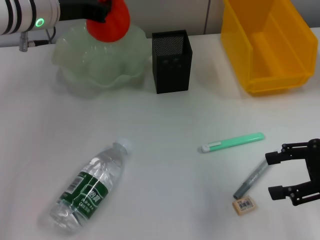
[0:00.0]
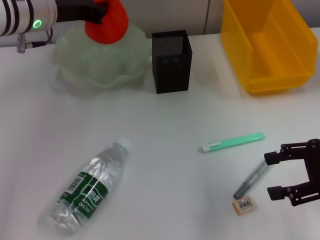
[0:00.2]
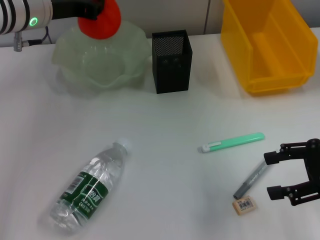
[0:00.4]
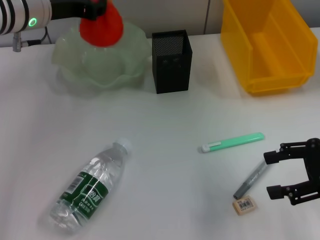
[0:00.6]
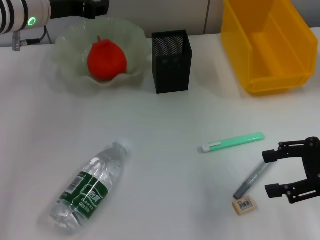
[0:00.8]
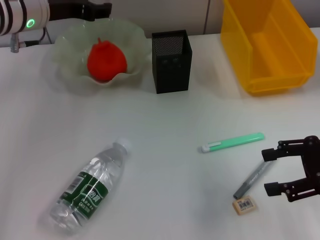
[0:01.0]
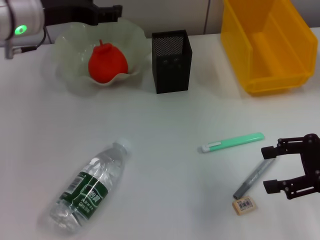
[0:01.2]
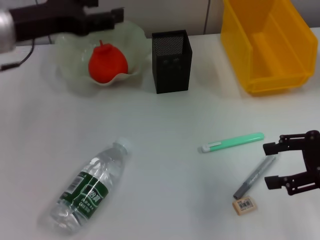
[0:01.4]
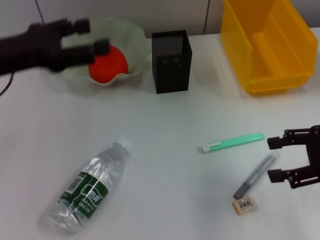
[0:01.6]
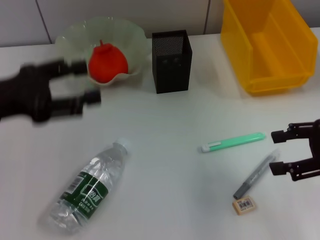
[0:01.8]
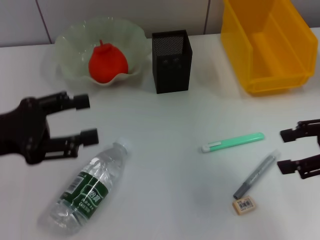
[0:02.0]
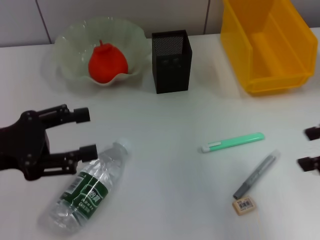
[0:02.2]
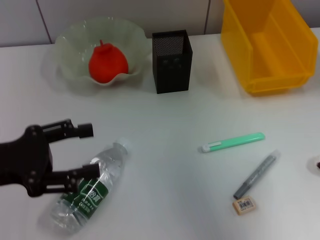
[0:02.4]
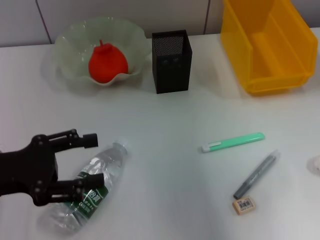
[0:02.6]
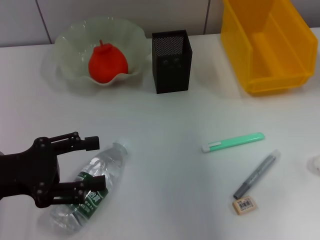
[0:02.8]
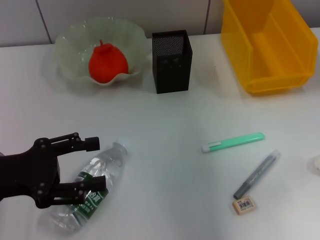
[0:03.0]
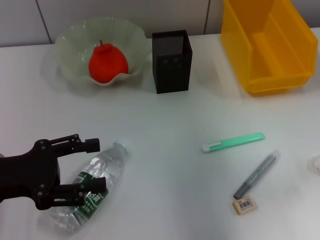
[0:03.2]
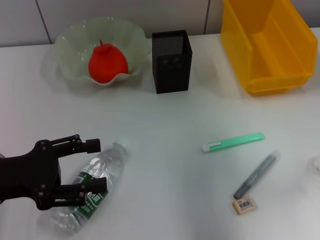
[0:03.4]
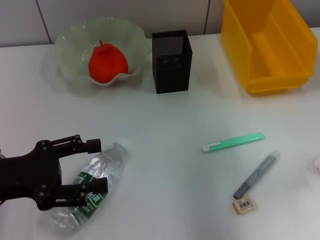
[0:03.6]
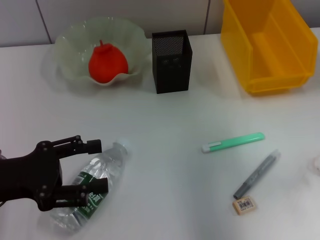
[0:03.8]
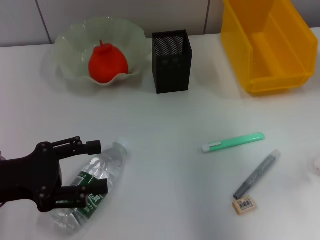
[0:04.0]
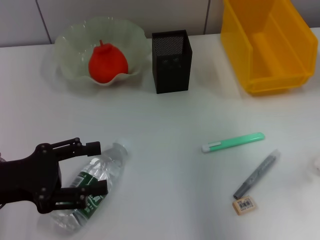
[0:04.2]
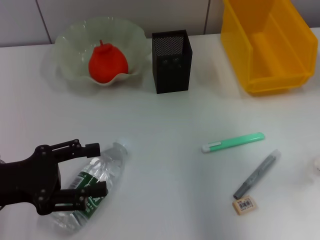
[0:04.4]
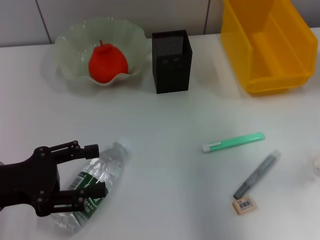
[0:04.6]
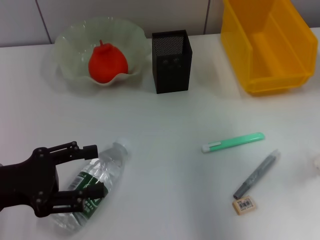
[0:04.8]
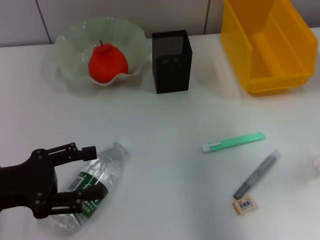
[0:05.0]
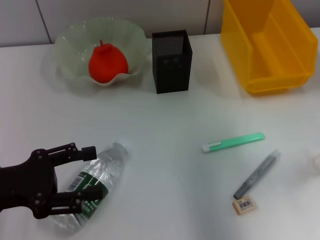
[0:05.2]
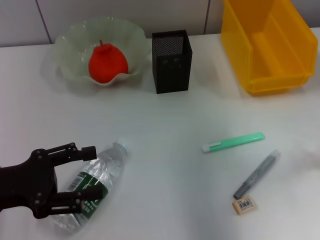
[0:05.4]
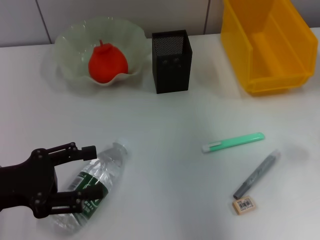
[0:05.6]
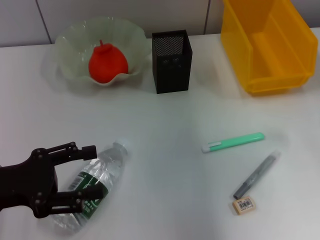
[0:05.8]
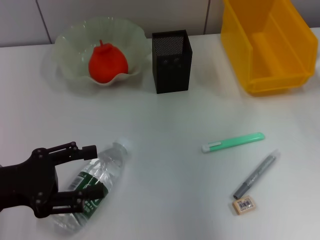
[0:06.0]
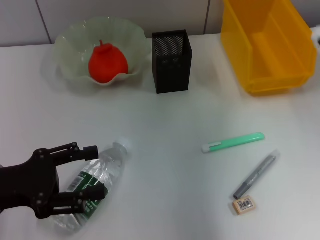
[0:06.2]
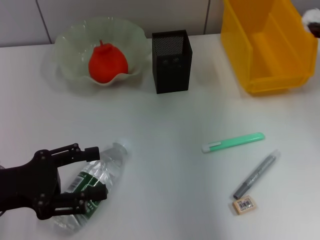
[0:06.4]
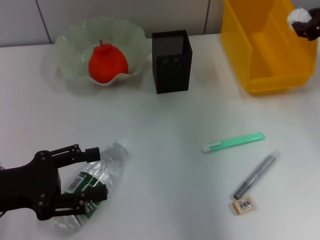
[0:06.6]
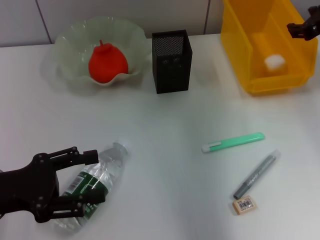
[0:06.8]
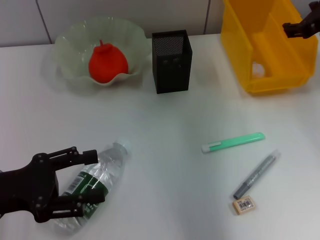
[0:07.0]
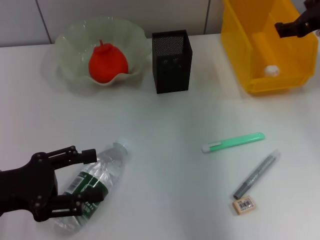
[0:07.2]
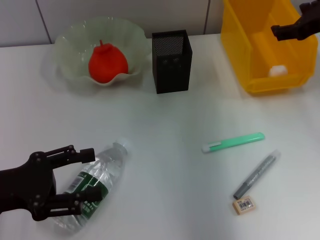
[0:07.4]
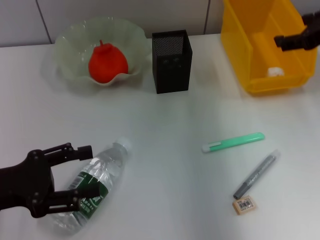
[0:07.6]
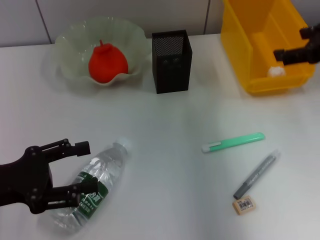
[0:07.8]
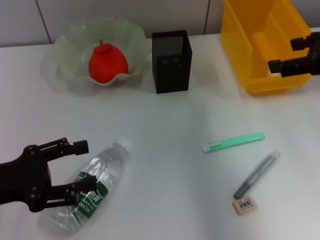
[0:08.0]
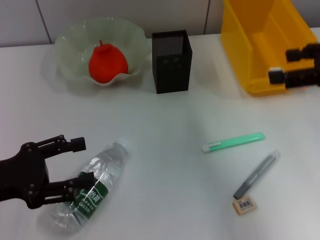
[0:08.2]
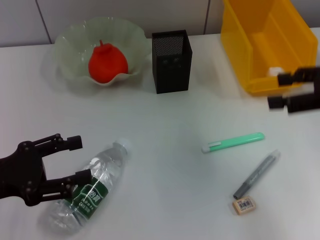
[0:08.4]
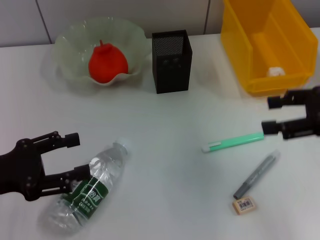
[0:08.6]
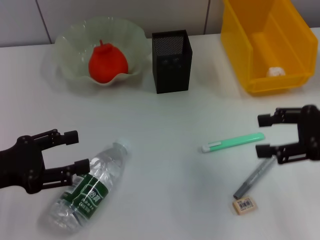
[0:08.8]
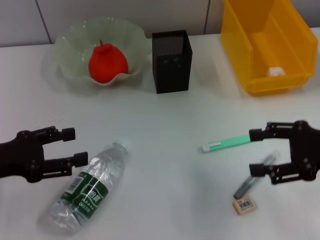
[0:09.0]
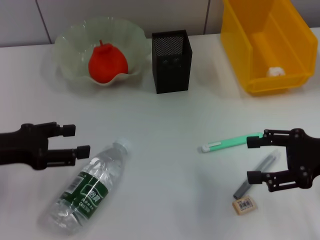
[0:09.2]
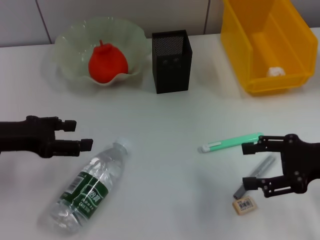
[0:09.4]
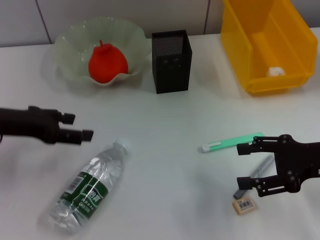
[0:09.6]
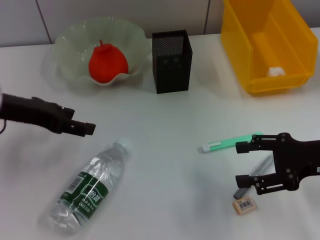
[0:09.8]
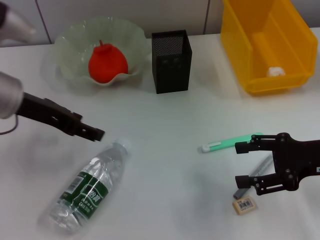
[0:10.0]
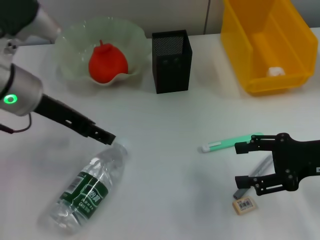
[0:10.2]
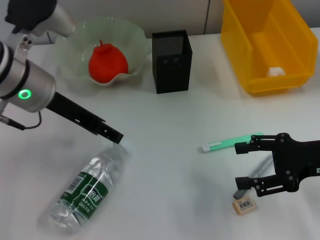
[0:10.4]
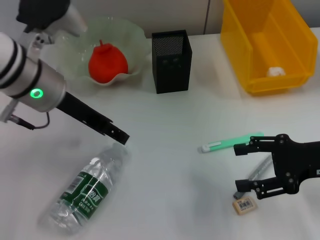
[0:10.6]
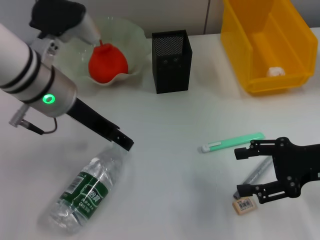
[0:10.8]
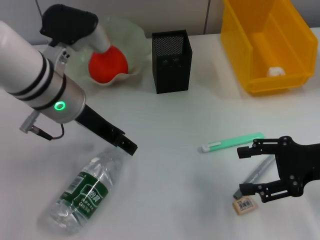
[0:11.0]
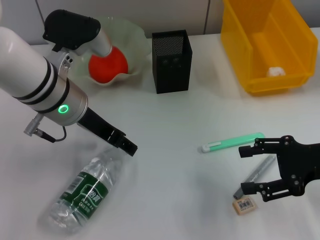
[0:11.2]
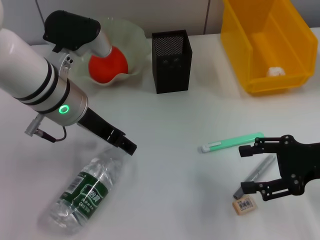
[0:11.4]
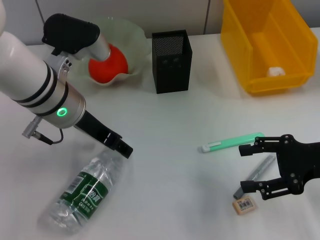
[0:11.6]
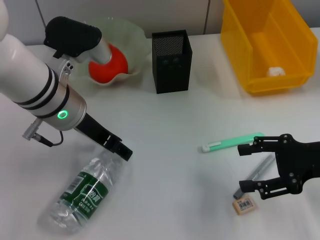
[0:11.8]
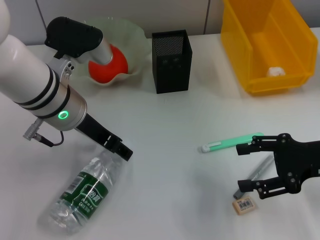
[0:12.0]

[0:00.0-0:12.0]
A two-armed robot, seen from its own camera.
Step, 0:01.2 to 0:05.2: Grab the paper ball with the right hand.
Step, 0:05.4 to 0:07.0: Place the paper ball into the trash can with the right hand.
0:00.0 to 0:01.6: The left gripper heads backward and to the left, covering roughly 15 cm, and opens its fingers.
0:01.6 to 0:03.0: The right gripper moves upward, about 10 cm. Meanwhile the left gripper travels backward and downward by some 10 cm.
0:04.4 to 0:06.0: The right gripper shifts approximately 10 cm upward, and closes up.
0:06.0 to 0:07.6: The right gripper opens its fingers.
0:07.6 to 0:09.0: The right gripper heads downward and backward, covering some 15 cm.
0:09.0 to 0:10.4: The left gripper shifts some 20 cm to the right, forward and upward.
0:10.4 to 0:12.0: The left gripper moves about 5 cm.

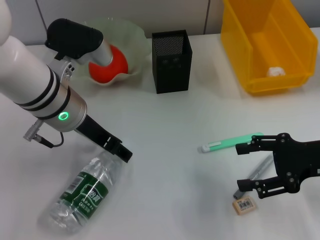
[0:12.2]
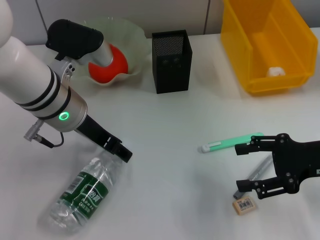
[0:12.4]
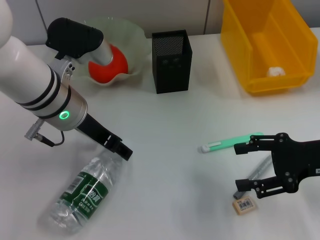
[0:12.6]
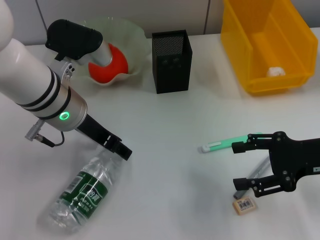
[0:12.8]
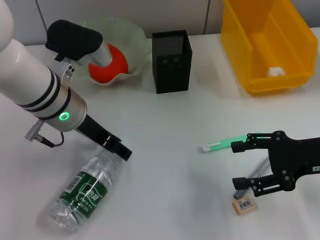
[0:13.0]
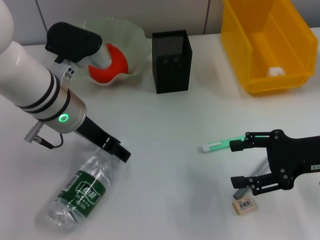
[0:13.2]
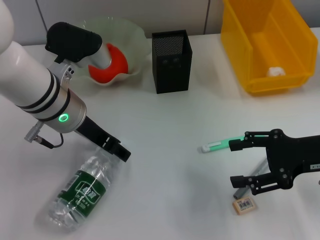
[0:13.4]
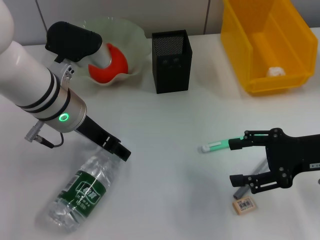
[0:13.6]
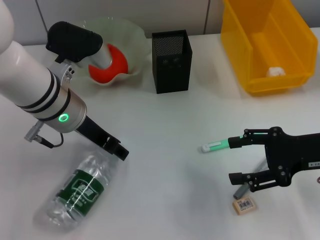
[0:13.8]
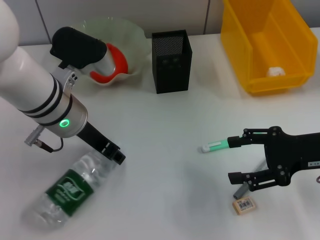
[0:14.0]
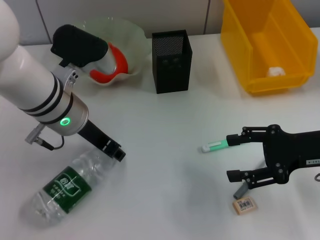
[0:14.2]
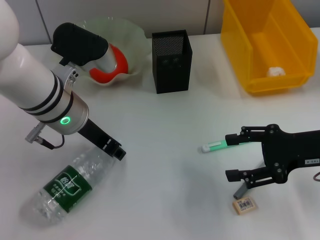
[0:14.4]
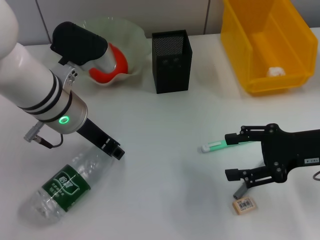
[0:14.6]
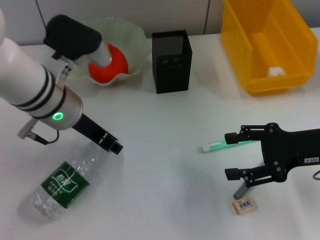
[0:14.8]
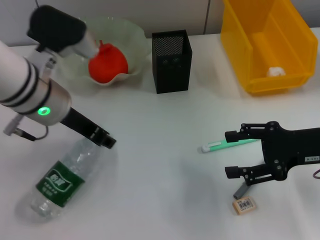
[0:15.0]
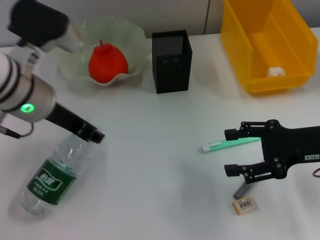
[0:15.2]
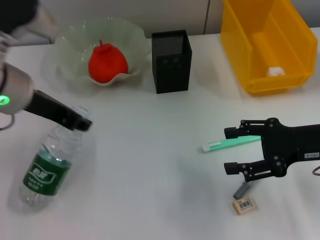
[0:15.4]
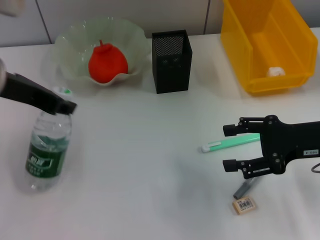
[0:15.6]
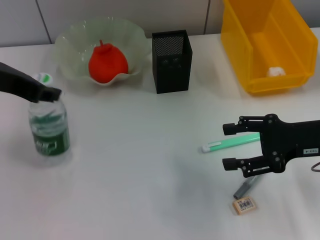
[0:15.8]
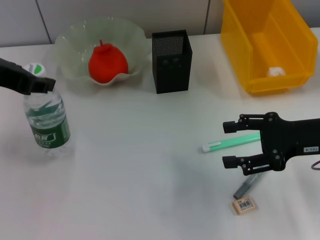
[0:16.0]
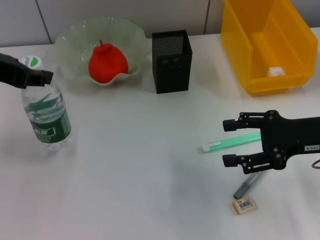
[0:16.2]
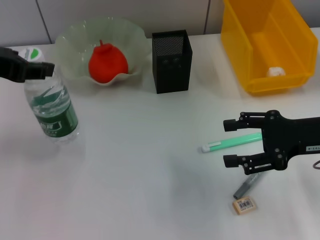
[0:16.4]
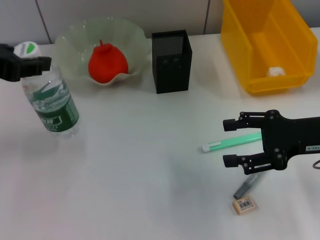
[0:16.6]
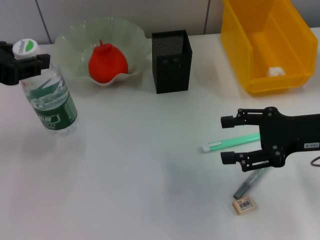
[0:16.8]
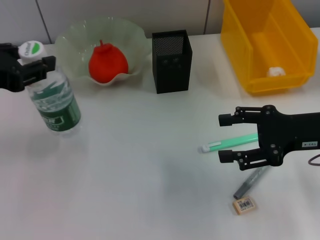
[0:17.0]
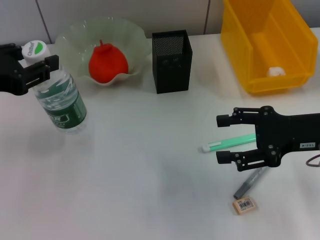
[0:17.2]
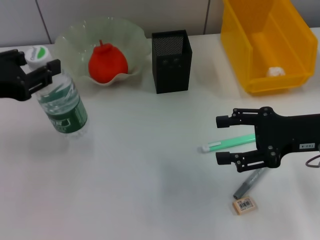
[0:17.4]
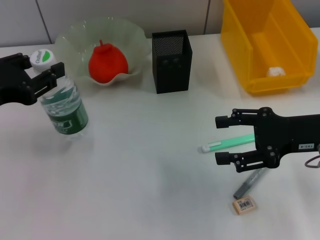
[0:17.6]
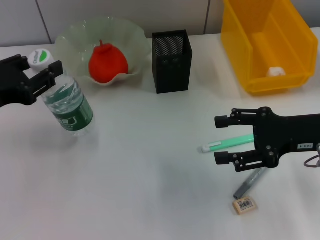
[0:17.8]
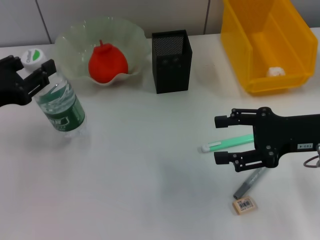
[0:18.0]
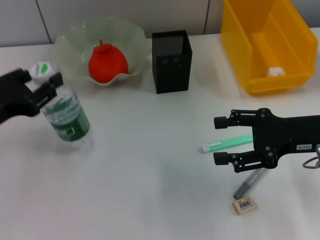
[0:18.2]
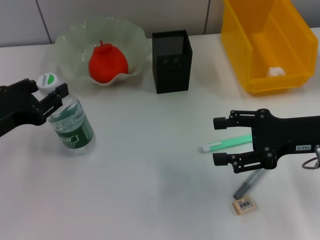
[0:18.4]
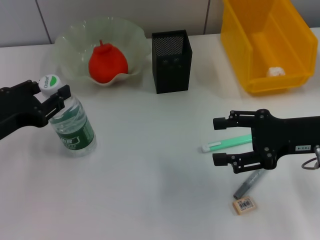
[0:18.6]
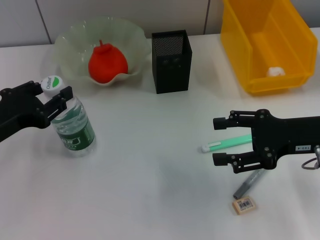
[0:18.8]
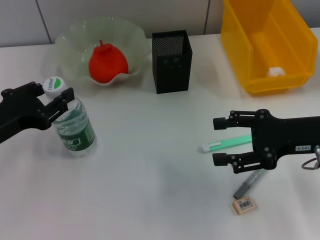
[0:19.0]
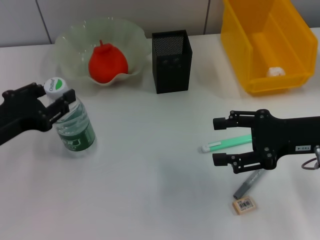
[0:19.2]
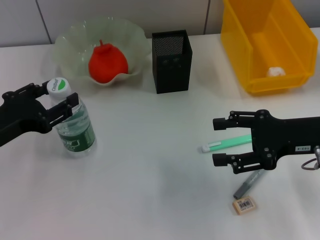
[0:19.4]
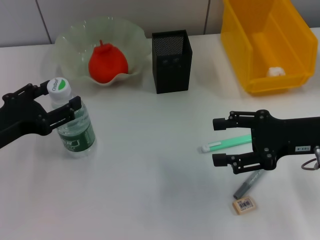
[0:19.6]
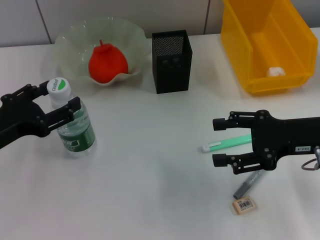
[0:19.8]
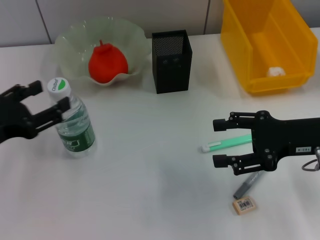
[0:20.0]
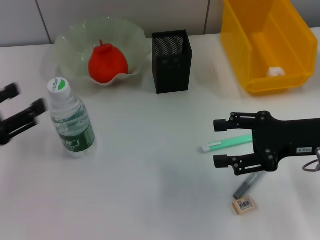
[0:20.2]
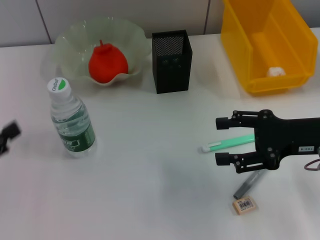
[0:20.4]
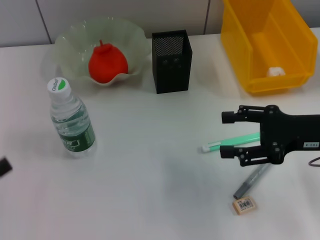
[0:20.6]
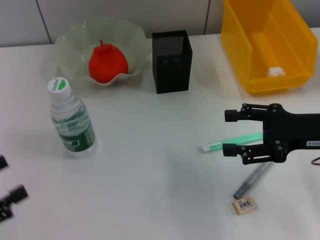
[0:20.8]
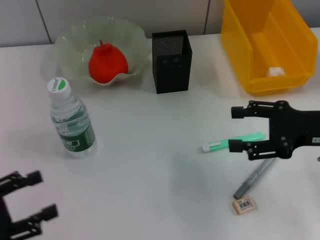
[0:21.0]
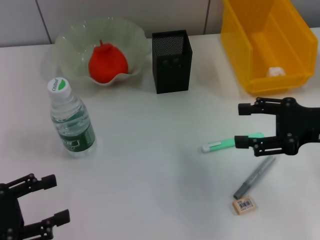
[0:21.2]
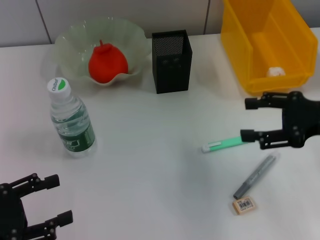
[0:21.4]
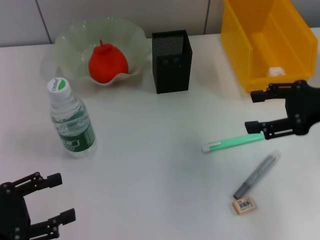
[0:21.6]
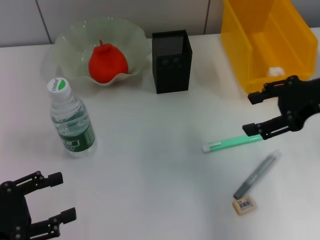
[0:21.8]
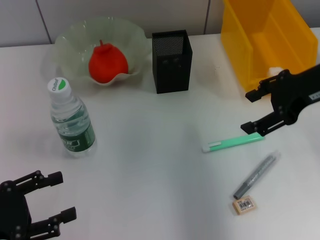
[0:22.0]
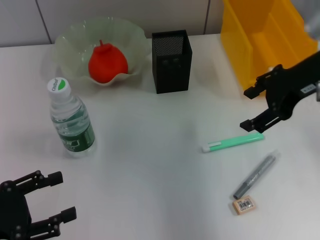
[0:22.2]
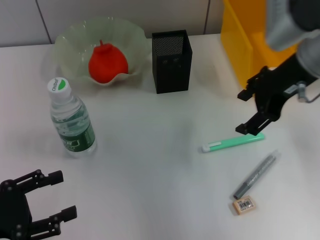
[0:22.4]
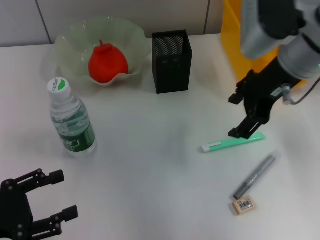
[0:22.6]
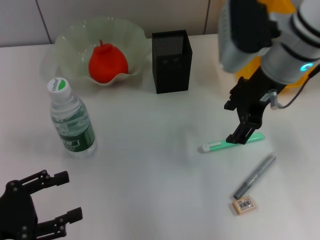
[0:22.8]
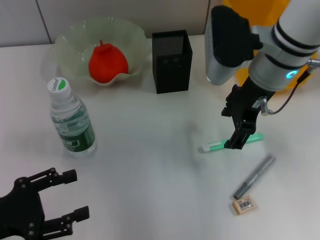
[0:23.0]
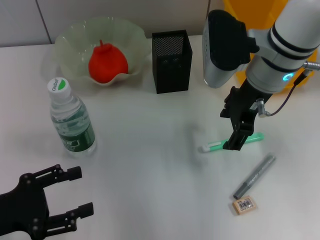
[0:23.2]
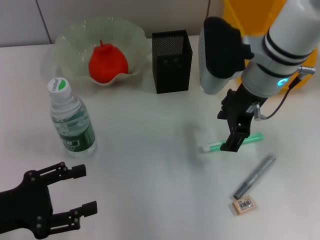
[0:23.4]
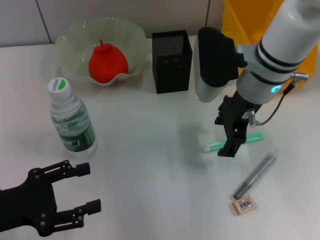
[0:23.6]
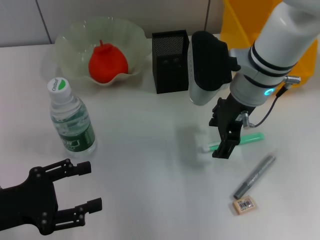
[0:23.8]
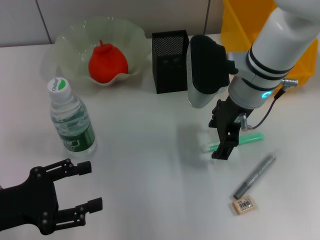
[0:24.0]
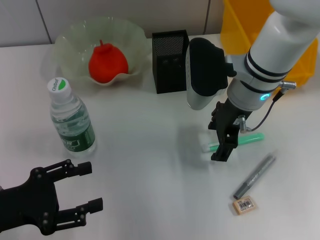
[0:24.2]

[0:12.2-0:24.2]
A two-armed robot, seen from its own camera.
Step, 0:14.2 to 0:19.6: Place the water bottle on the table with the left hand.
0:12.2 to 0:13.8: The two grippers keep their place.
0:13.8 to 0:15.2: The left gripper ends up some 5 cm from where it was, and closes up.
0:15.2 to 0:16.6: The left gripper travels to the left, upward and backward by roughly 15 cm.
0:16.6 to 0:18.2: The left gripper shifts approximately 15 cm downward.
0:18.2 to 0:19.8: The left gripper opens its fingers.
0:19.8 to 0:21.2: The left gripper moves backward and to the left, approximately 10 cm.
0:21.2 to 0:22.6: The right gripper shifts some 15 cm to the left, upward and forward.
0:22.6 to 0:24.2: The right gripper travels downward and to the left by approximately 10 cm.
